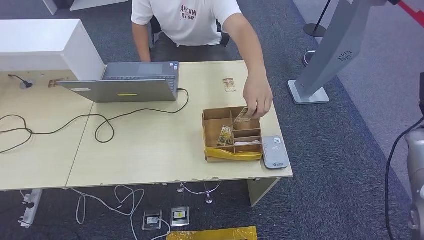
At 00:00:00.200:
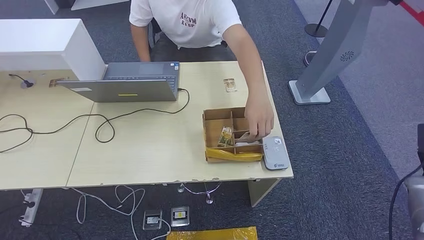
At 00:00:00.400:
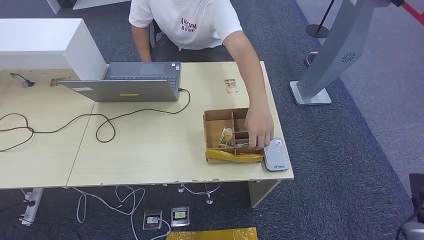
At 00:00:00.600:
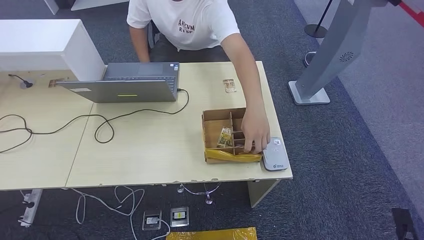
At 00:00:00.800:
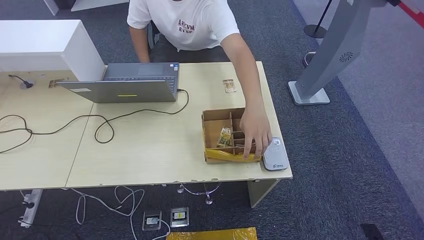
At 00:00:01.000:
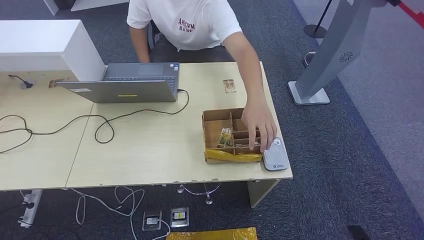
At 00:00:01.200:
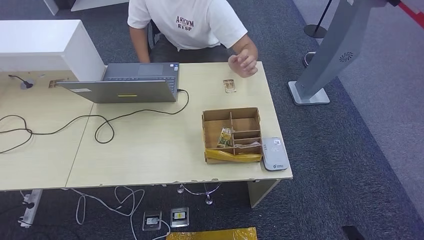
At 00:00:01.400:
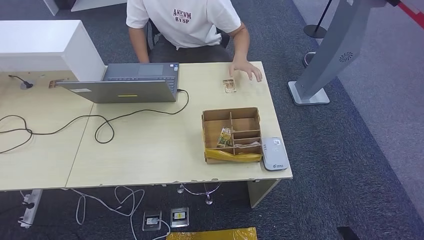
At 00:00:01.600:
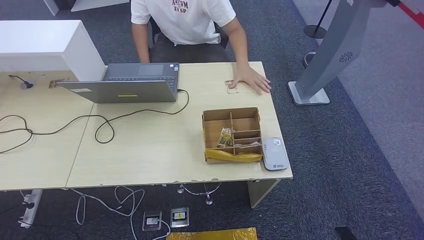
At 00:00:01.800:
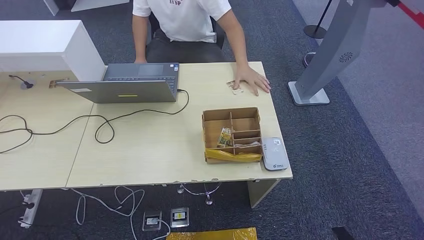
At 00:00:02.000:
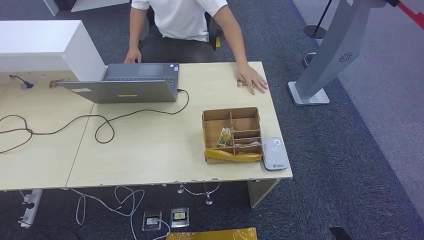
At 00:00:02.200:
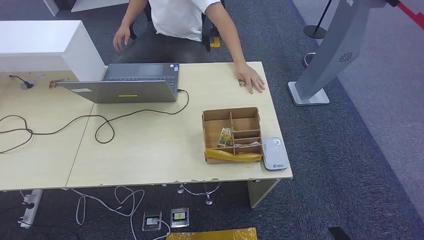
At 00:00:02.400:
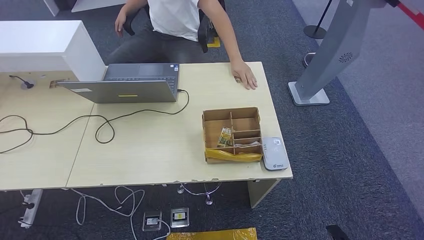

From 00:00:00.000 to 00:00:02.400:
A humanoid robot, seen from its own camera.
Step, from 00:00:00.000 to 00:00:02.400: Hand the room key to the person.
From 00:00:00.000 to 00:00:01.200: The right hand heads downward and backward, covering roughly 40 cm.
From 00:00:01.200 to 00:00:02.400: The hands make only small movements.
